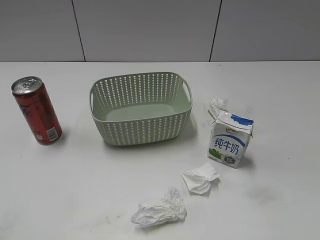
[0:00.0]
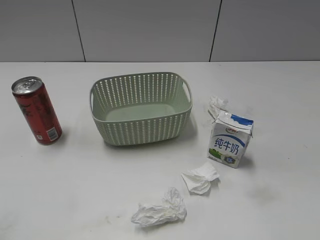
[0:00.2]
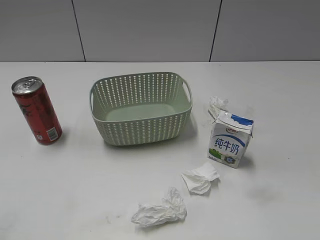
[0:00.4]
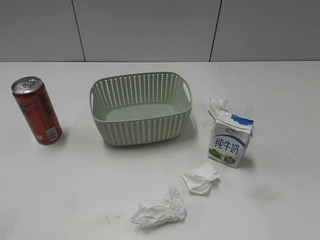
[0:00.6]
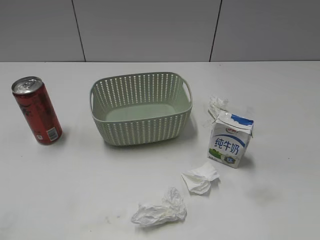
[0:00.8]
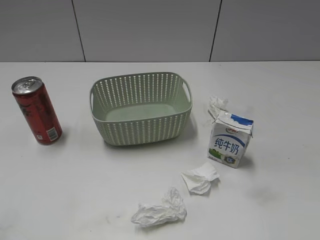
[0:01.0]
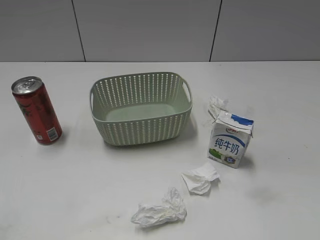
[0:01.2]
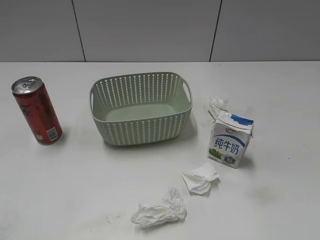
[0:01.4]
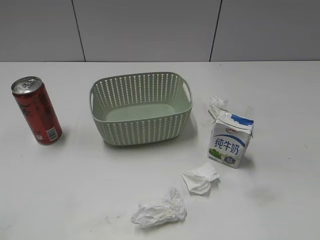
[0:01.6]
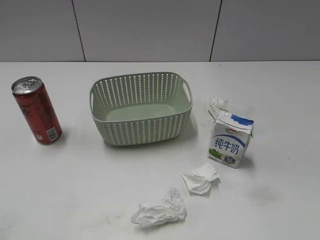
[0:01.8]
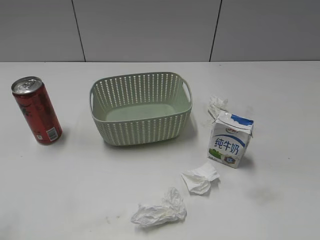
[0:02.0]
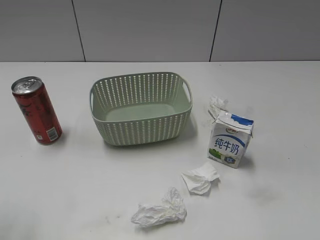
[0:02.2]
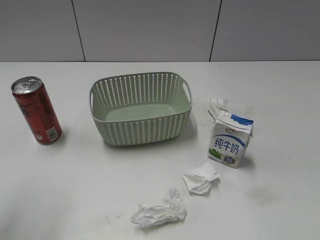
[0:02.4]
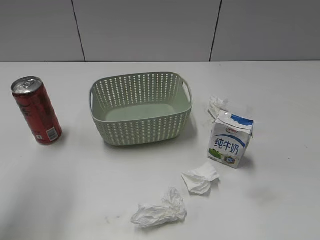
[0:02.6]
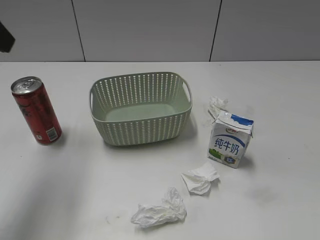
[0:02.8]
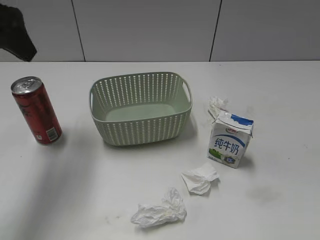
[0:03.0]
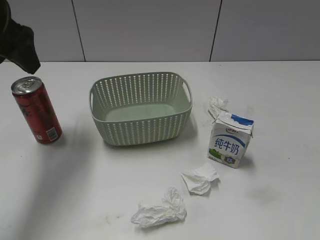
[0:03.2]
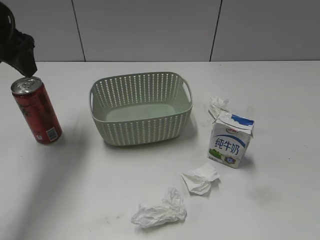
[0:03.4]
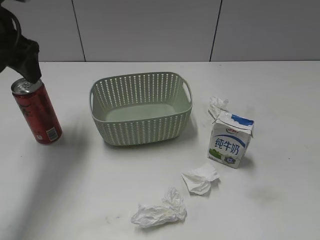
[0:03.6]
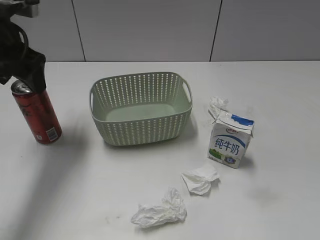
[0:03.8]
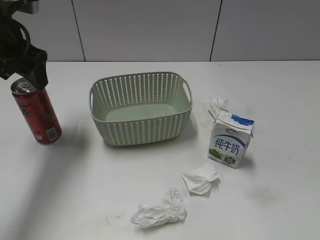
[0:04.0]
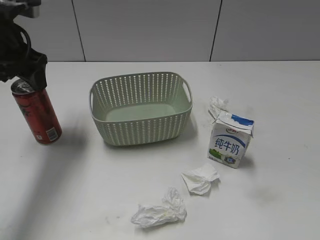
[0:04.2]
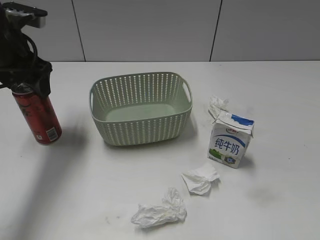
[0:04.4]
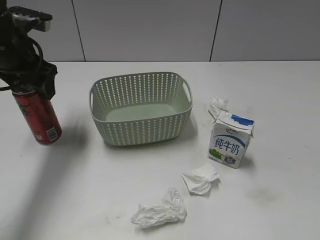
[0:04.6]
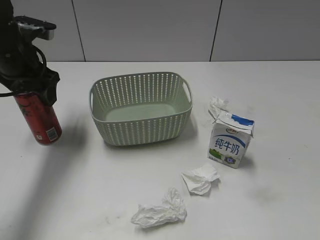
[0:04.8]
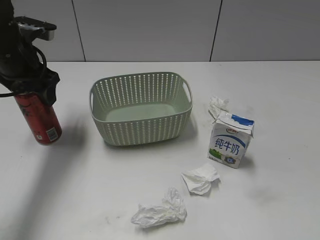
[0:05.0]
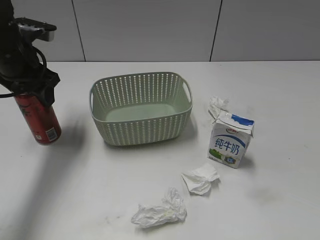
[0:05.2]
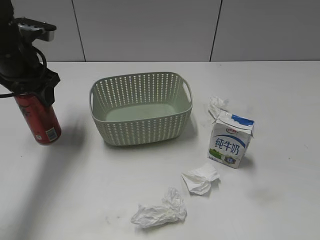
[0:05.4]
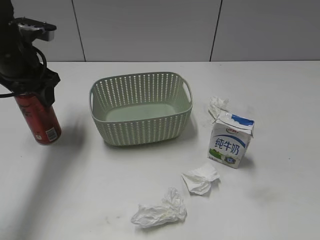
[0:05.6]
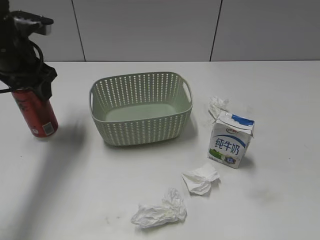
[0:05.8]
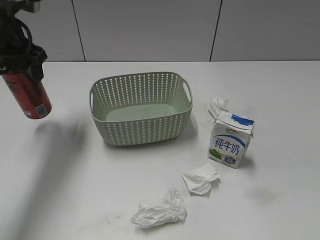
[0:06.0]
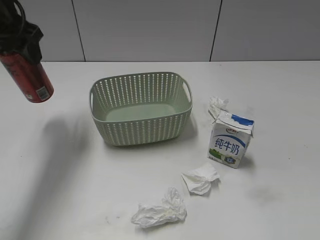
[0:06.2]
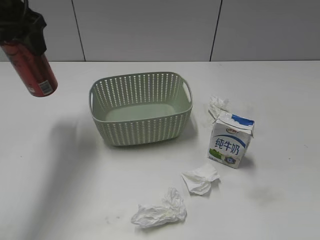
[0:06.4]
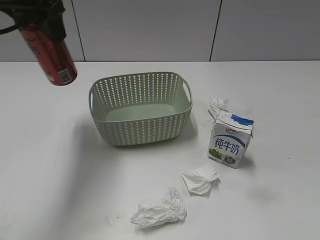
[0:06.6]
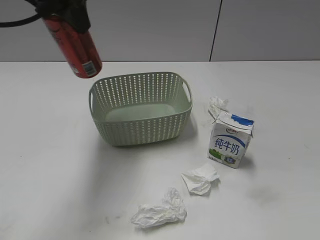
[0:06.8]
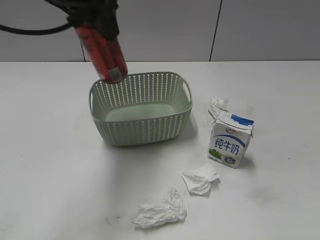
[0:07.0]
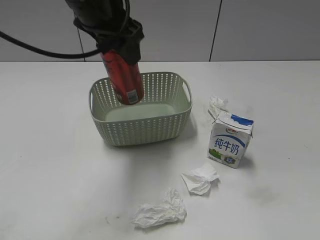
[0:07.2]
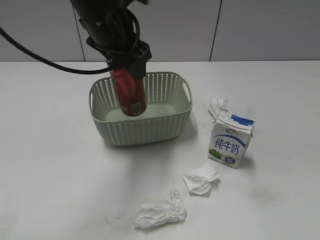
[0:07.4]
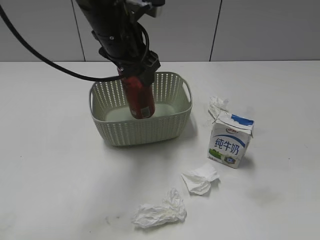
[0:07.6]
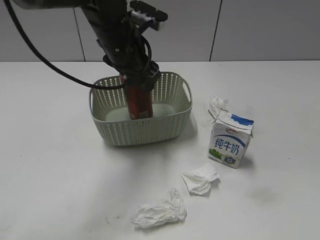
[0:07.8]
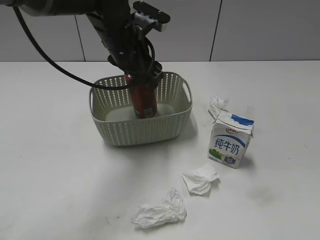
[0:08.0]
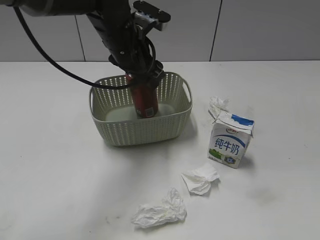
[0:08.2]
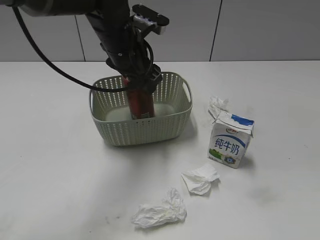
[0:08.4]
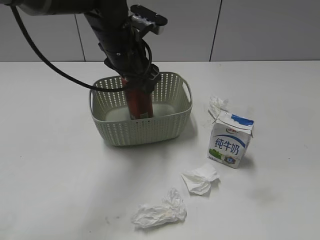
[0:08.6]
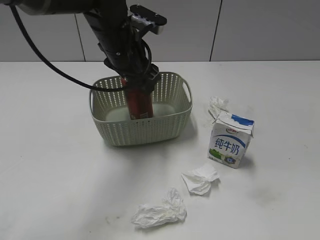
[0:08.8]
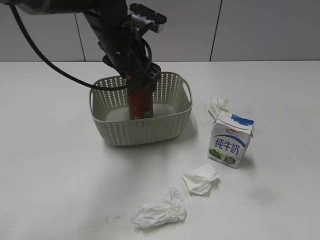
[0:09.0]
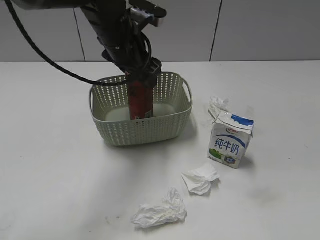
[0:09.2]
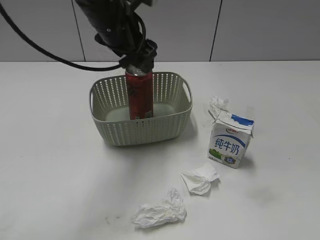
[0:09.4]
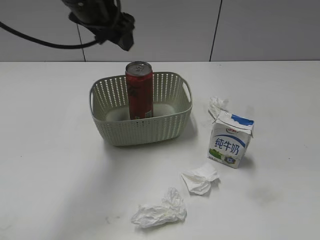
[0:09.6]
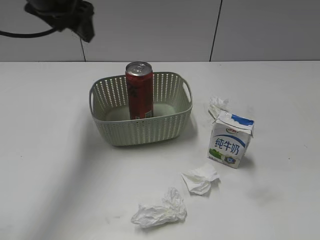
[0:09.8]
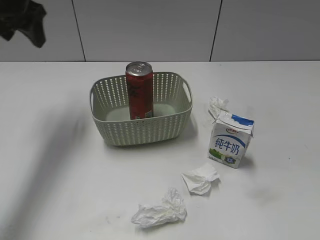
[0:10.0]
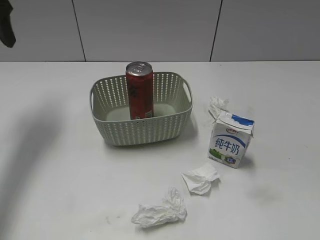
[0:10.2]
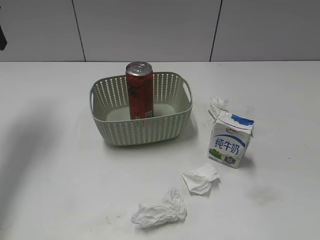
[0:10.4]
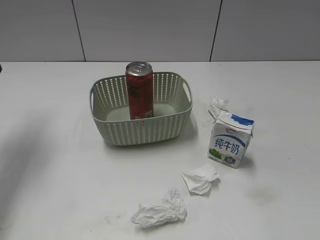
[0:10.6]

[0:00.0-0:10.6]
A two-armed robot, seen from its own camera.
Step, 0:02.8 to 0:05.2: Grasp the cola can with left gripper.
Step, 0:05.4 to 0:09.4: Place the cola can in the basket with left gripper.
0:01.6 to 0:03.0: The left gripper moves forward, roughly 25 cm.
0:03.0 to 0:04.6: The left gripper heads downward and forward, covering some 15 cm, and opens.
0:04.6 to 0:06.0: The left gripper closes up.
0:06.0 to 0:07.6: The left gripper travels to the right by approximately 20 cm.
0:07.6 to 0:09.0: The left gripper opens.
0:09.0 to 0:10.6: The left gripper is displaced to the left by some 25 cm, and closes its fingers.

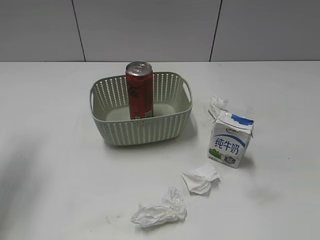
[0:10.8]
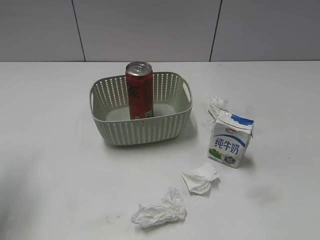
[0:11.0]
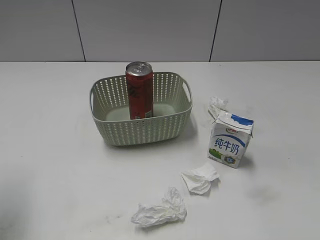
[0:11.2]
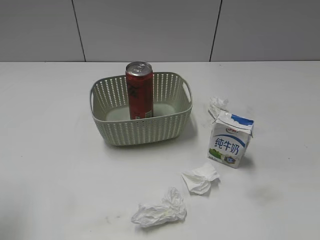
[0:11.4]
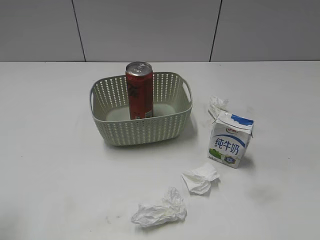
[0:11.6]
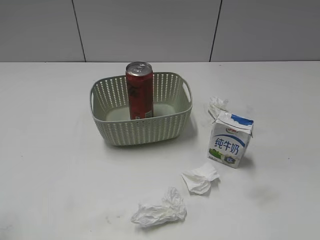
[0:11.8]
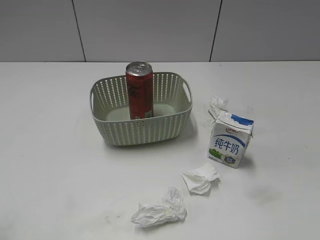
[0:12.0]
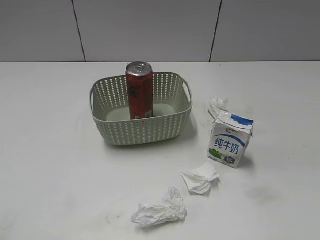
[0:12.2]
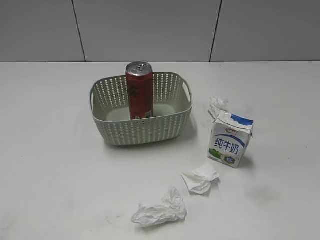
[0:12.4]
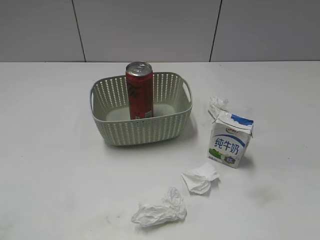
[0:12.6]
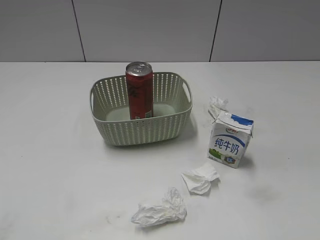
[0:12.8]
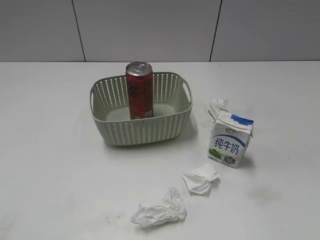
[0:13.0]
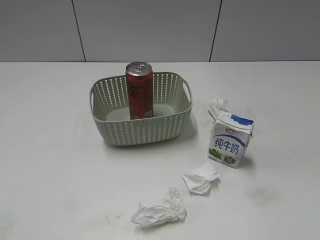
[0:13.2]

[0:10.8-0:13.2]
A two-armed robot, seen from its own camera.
0:10.8 to 0:12.0: The left gripper heads backward, covering approximately 20 cm, and closes up.

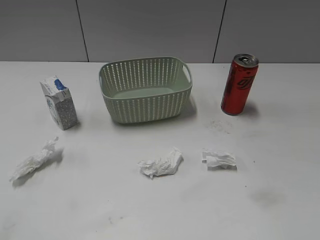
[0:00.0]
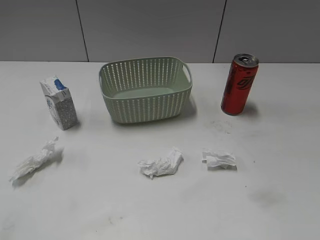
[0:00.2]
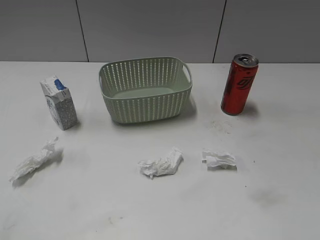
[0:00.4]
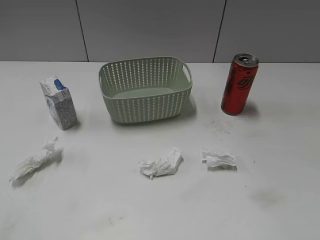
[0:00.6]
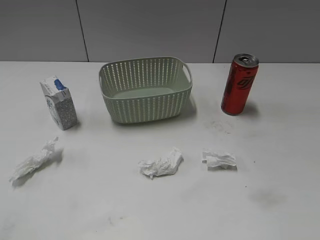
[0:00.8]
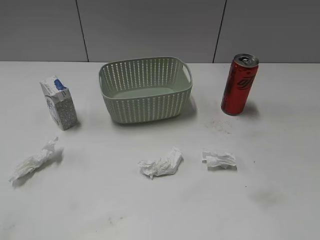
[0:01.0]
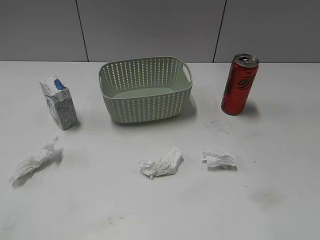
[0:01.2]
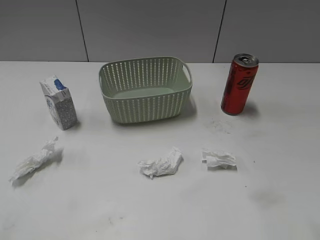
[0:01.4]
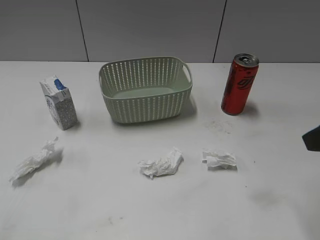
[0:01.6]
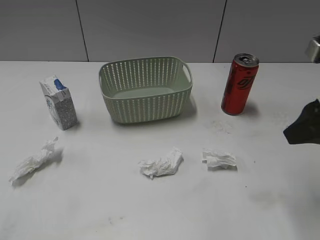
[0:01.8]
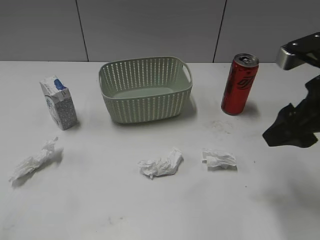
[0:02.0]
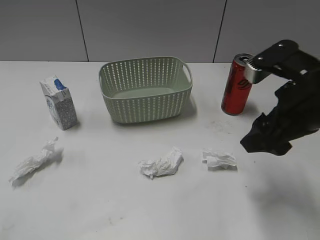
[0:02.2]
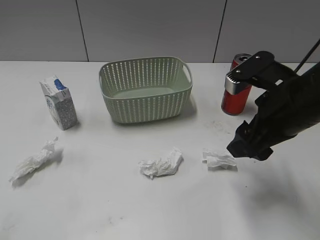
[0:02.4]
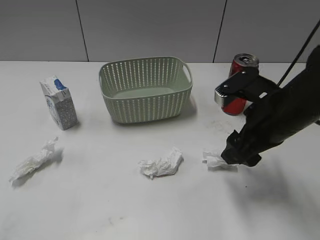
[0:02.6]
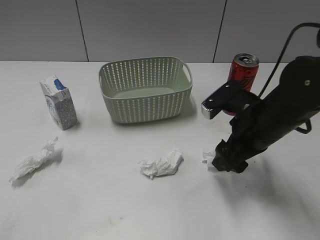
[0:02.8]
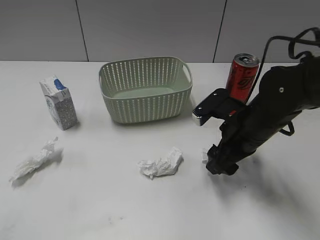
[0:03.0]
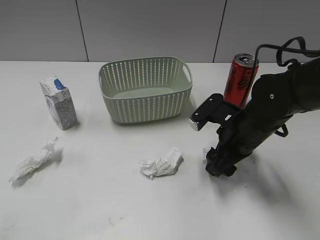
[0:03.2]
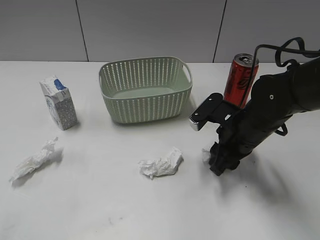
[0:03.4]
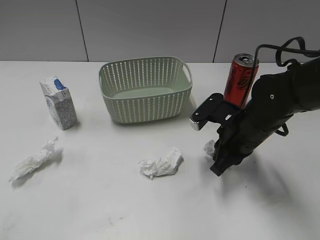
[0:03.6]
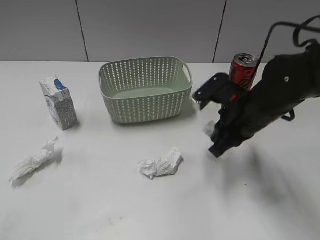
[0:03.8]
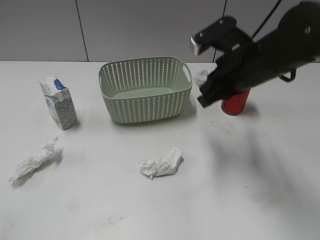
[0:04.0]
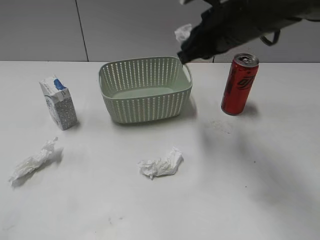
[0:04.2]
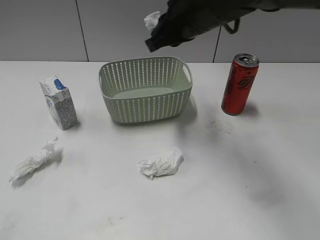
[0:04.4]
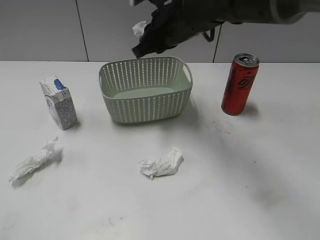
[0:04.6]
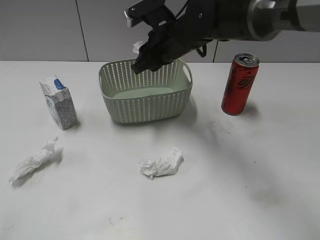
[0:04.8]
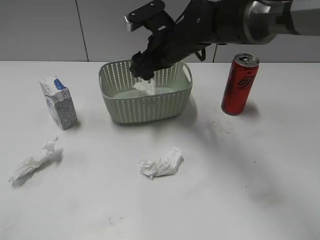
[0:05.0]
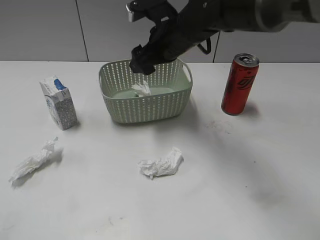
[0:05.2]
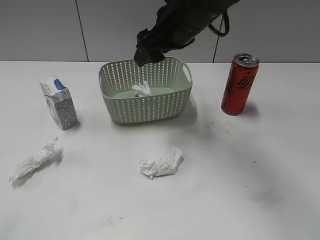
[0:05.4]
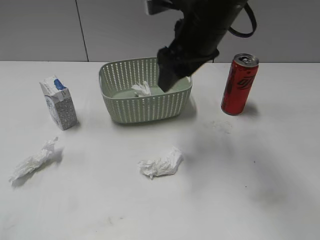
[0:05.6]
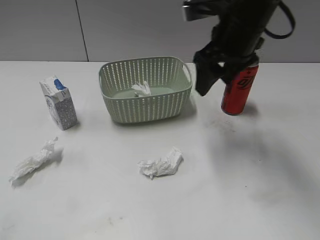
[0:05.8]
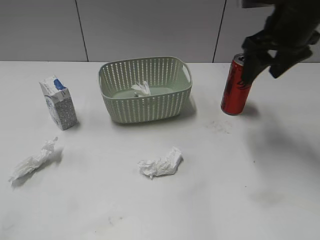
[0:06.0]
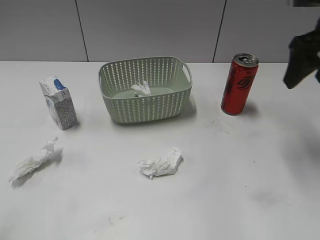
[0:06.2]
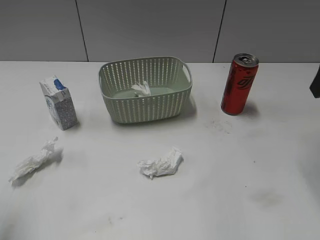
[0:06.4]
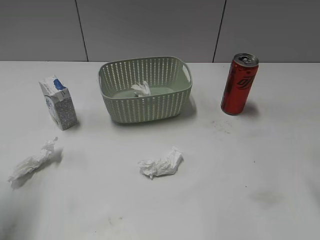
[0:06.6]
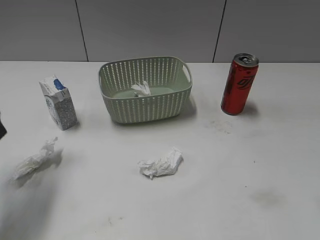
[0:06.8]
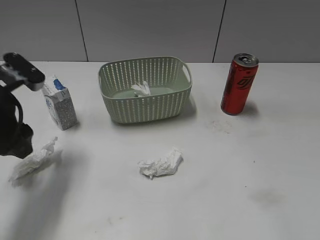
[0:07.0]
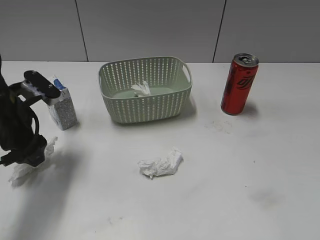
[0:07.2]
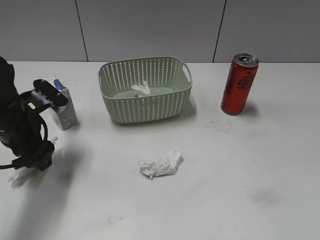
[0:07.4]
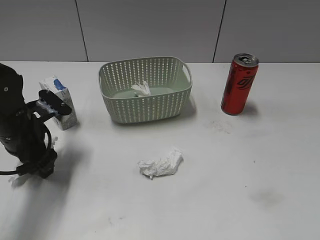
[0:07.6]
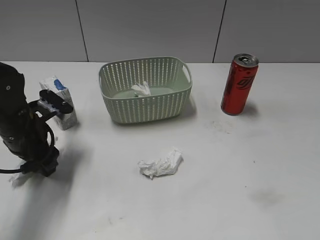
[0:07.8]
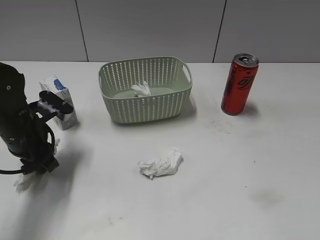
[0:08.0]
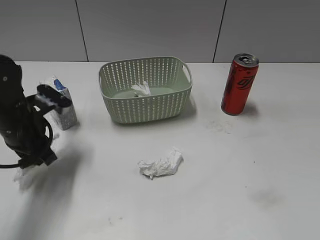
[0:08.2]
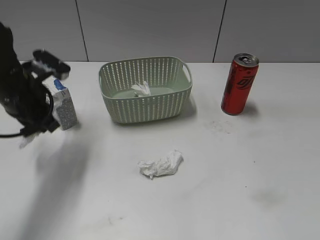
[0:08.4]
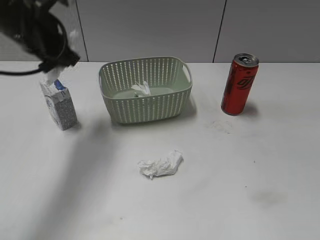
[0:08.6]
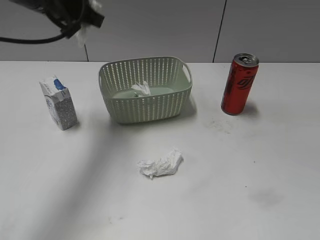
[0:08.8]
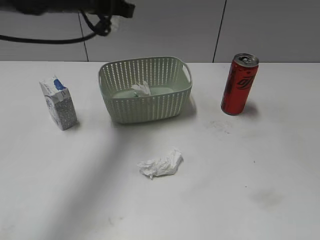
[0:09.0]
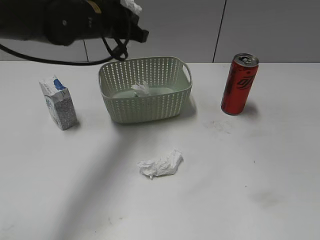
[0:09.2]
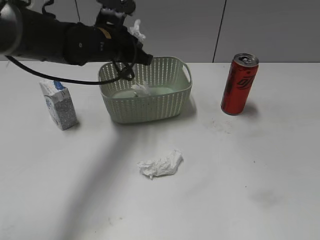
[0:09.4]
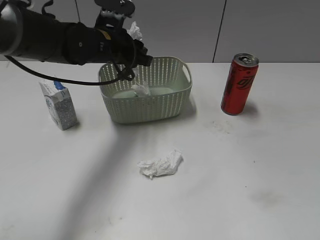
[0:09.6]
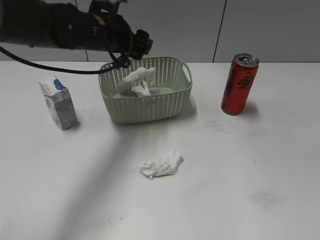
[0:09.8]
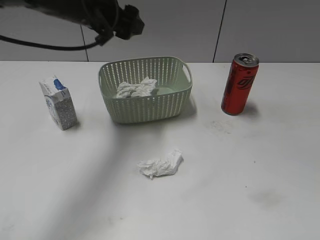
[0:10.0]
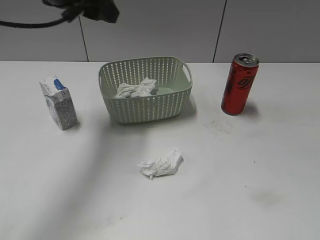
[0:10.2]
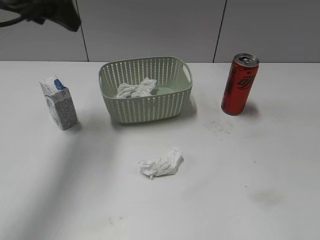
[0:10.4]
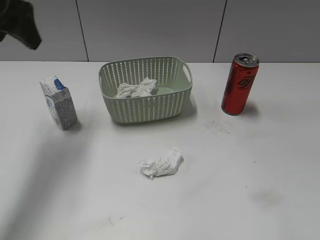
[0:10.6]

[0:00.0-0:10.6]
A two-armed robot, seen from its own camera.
Step, 0:01.4 to 0:03.6: Grasp the waste paper with right gripper.
Step, 0:03.8 to 0:05.2: Place the waste paper in the basket with right gripper.
Step, 0:05.4 to 0:08.2: Grasp the waste paper with left gripper.
Step, 0:08.4 to 0:10.2: Place the waste paper in the basket with left gripper.
0:01.6 to 0:03.0: The left gripper opens up. The right gripper moves downward, to the left and forward, approximately 20 cm.
0:03.0 to 0:04.6: The right gripper moves to the left, forward and upward, about 20 cm, and closes.
0:04.6 to 0:06.0: The right gripper moves to the right, approximately 20 cm, and opens its fingers.
0:06.0 to 0:07.6: The left gripper goes about 30 cm forward and downward; the right gripper travels backward by roughly 35 cm.
0:07.6 to 0:09.0: The left gripper moves upward, to the right and forward, roughly 20 cm, and closes its fingers.
0:09.0 to 0:10.6: The left gripper moves to the left and upward, roughly 20 cm, and opens its fingers. Meanwhile the right gripper goes approximately 15 cm forward.
